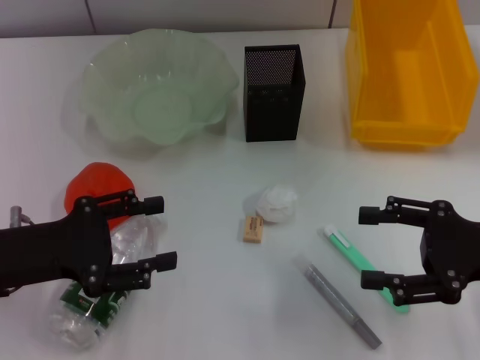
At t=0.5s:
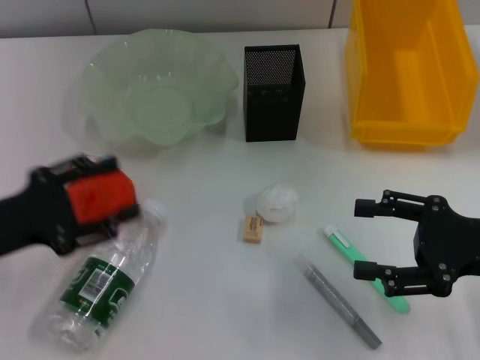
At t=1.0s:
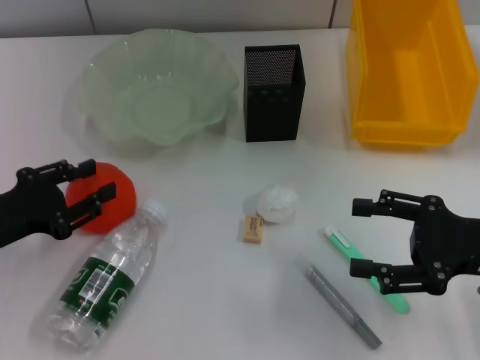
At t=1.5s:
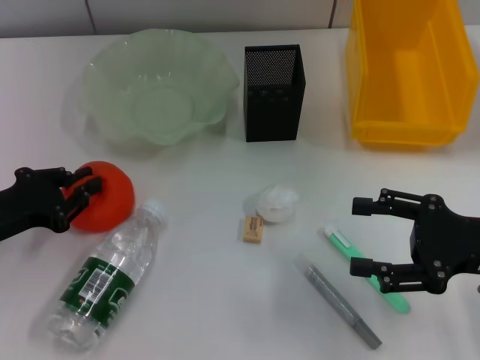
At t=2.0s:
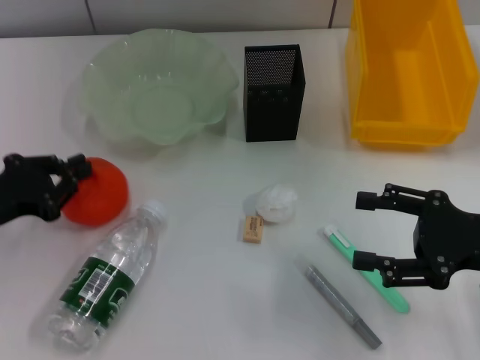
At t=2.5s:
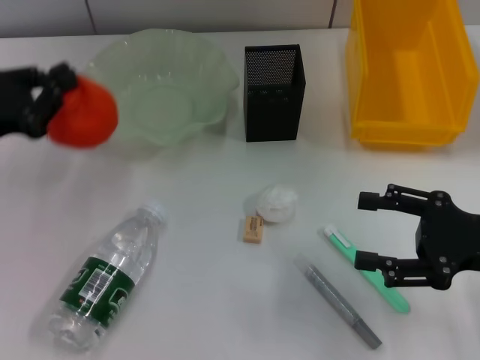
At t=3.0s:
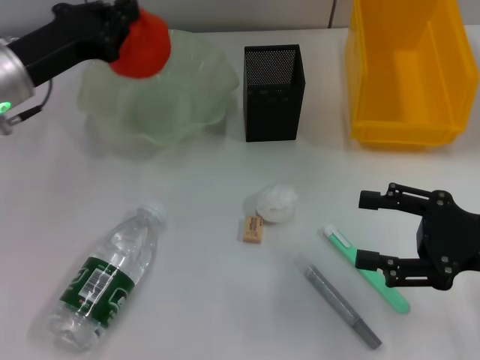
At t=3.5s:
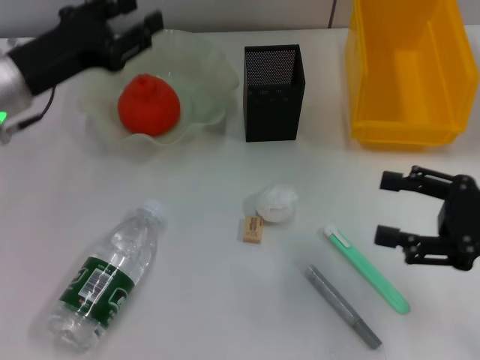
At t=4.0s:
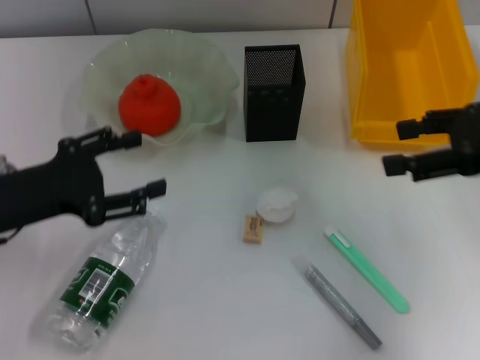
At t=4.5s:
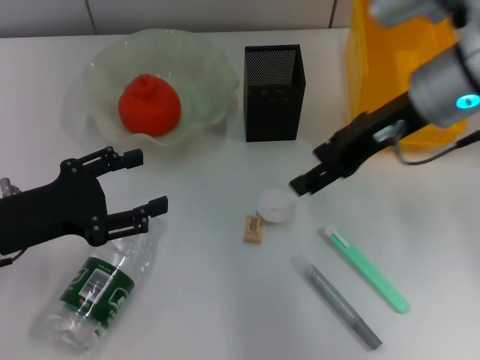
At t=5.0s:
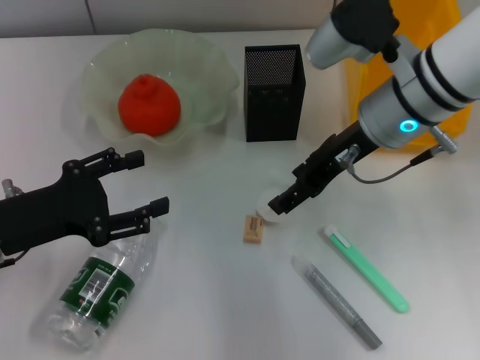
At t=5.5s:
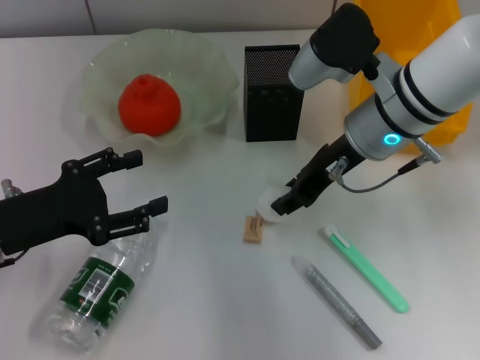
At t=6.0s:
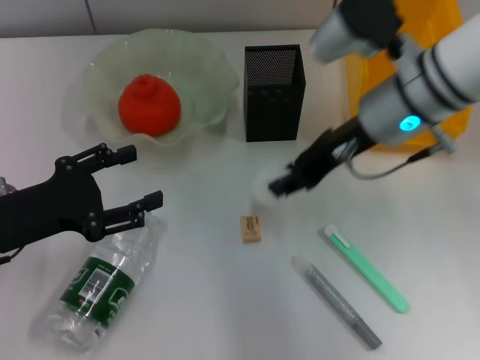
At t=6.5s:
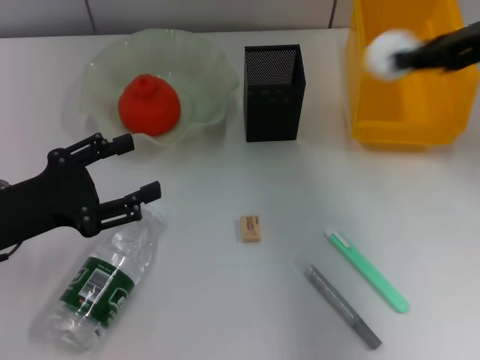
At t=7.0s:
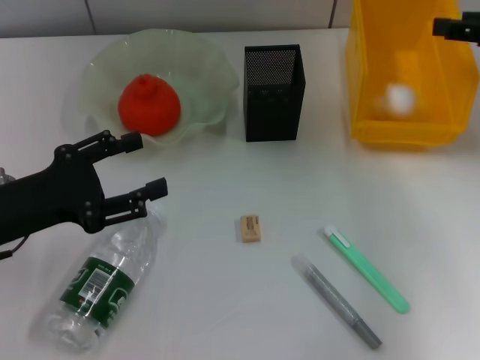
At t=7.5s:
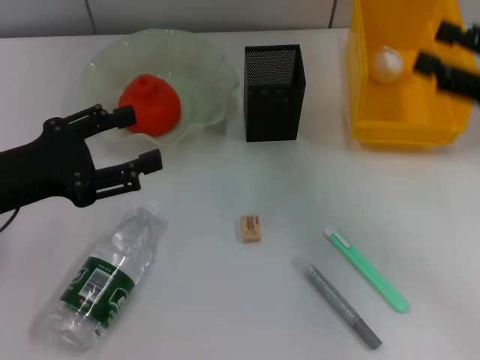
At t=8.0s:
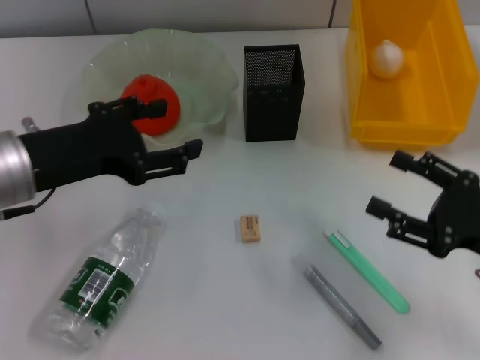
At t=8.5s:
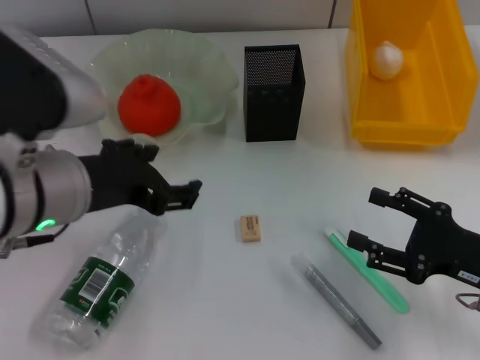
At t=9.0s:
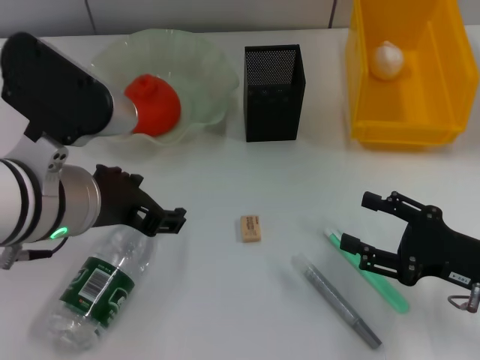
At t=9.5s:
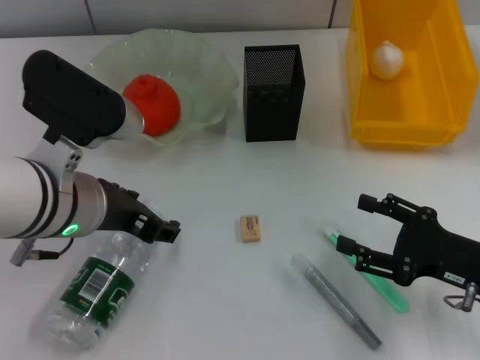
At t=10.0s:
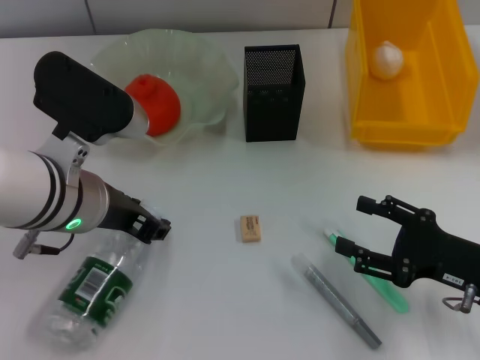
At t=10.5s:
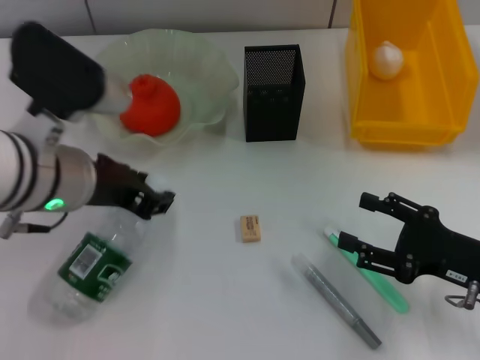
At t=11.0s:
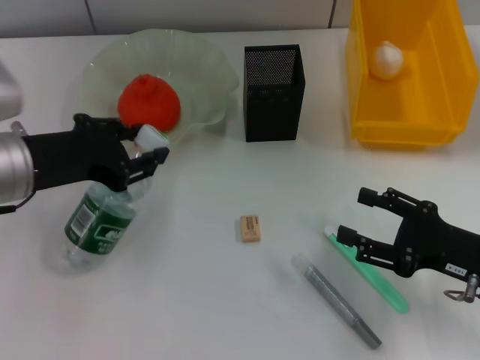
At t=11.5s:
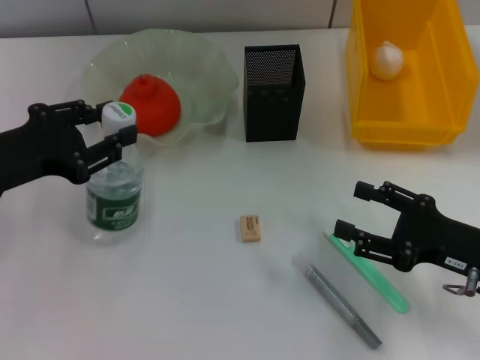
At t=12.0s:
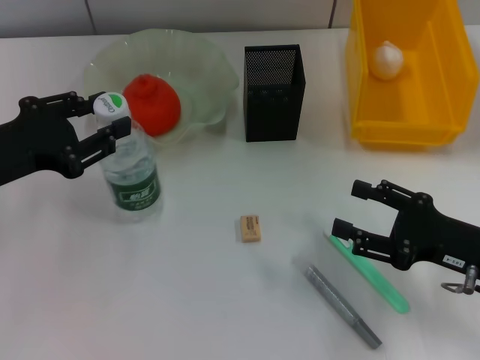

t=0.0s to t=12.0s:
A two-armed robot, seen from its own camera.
Step, t=0.0s to t=1.5s: Grab the orange with the left hand.
Step, t=2.5s to t=3.0s: Place the orange into the fruit bowl with the left hand.
Step, t=3.5s to t=5.5s: Grab the paper ball with the right hand.
Step, t=6.0s to t=7.0s: Place the paper ball into the trash can with the right hand.
Step, t=7.5s to t=10.0s: Grab the water bottle with the left hand.
t=0.0s to t=2.0s: The left gripper ends up some 5 cm from where it was, and closes up.
t=2.0s to t=4.0s: The right gripper shifts some 15 cm upward and forward, while the left gripper goes forward and returns, approximately 10 cm each way, and opens up.
t=4.0s to t=6.0s: The right gripper travels to the left by approximately 15 cm, and closes.
t=6.0s to t=8.0s: The right gripper heads to the right, backward and downward, covering about 25 cm, and opens; the left gripper shifts about 10 cm upward and to the right.
t=8.0s to t=10.0s: The left gripper shifts about 5 cm to the right.
t=10.0s to t=12.0s: The left gripper shifts about 10 cm to the left.

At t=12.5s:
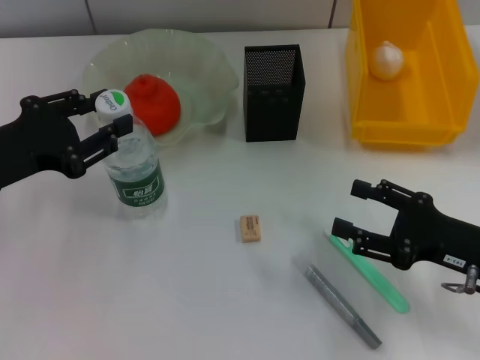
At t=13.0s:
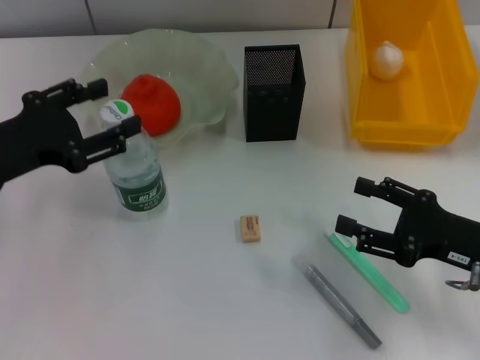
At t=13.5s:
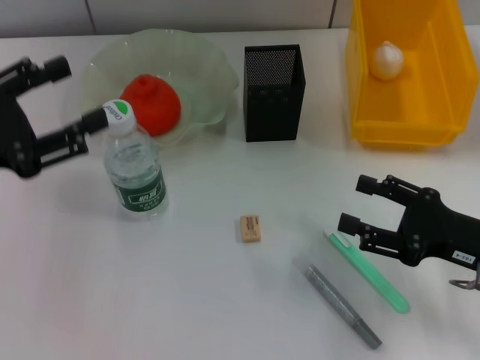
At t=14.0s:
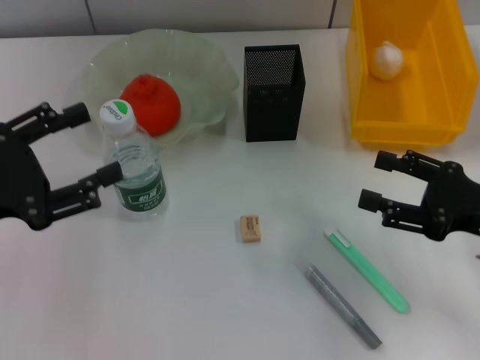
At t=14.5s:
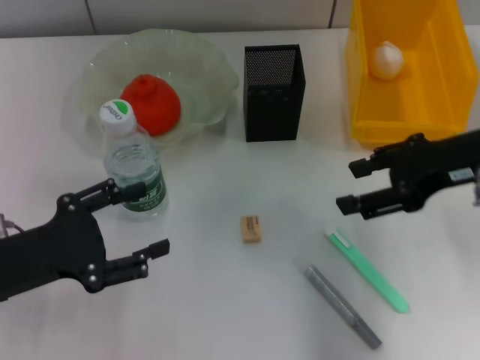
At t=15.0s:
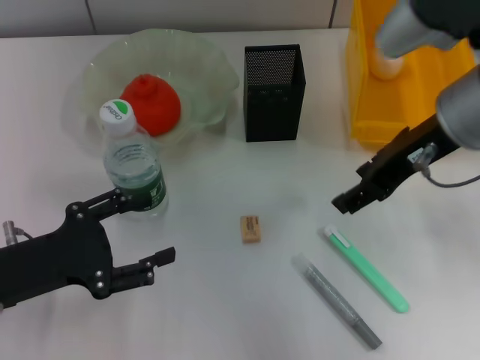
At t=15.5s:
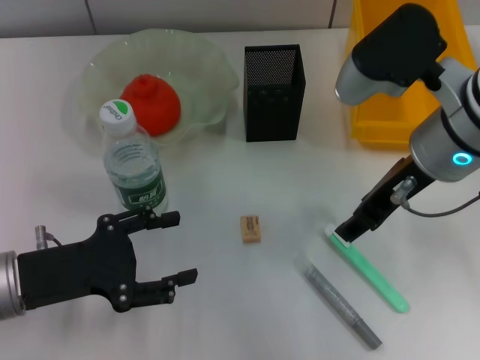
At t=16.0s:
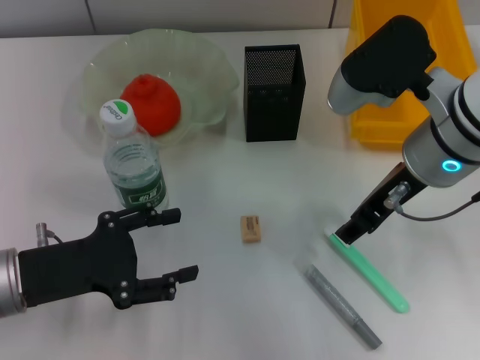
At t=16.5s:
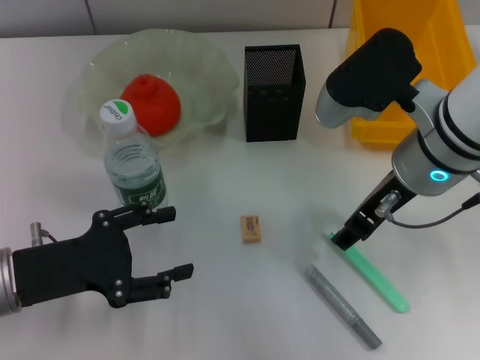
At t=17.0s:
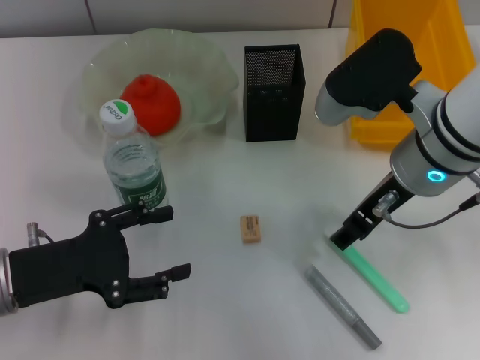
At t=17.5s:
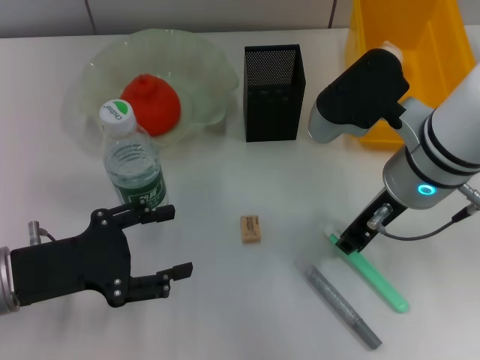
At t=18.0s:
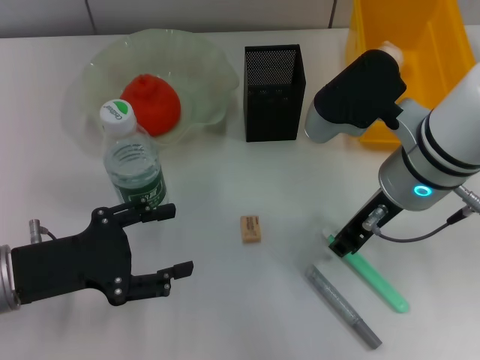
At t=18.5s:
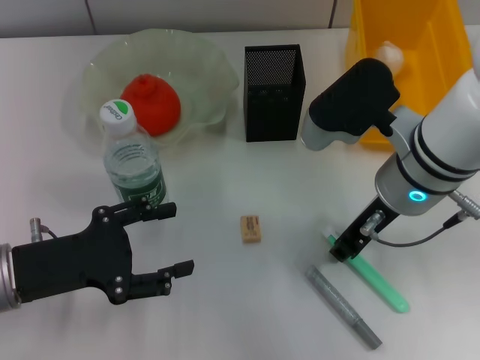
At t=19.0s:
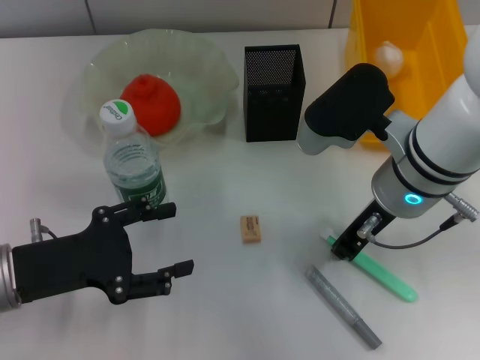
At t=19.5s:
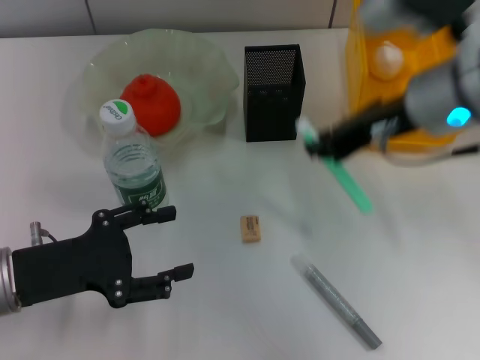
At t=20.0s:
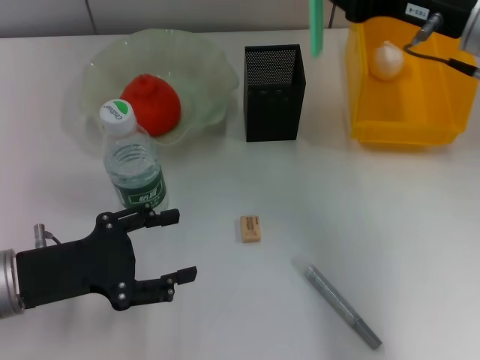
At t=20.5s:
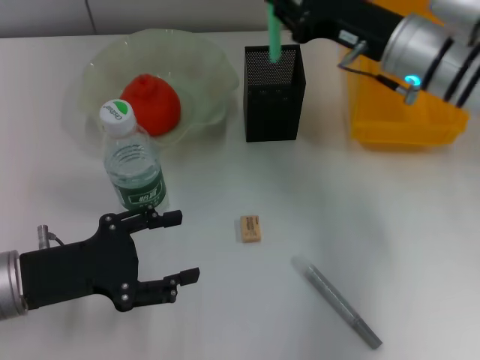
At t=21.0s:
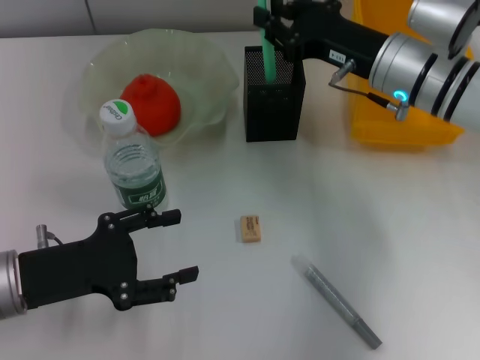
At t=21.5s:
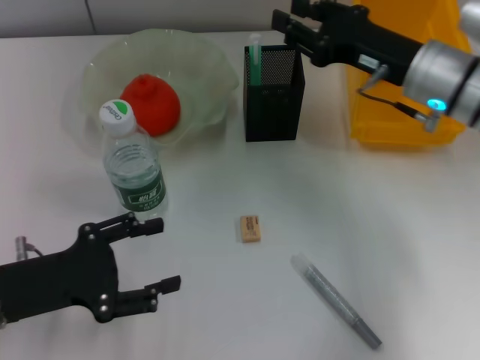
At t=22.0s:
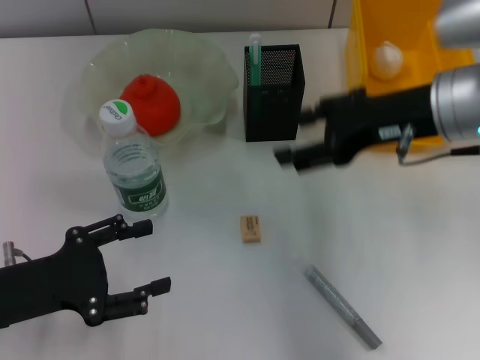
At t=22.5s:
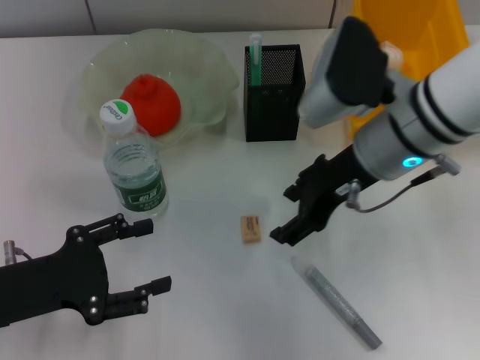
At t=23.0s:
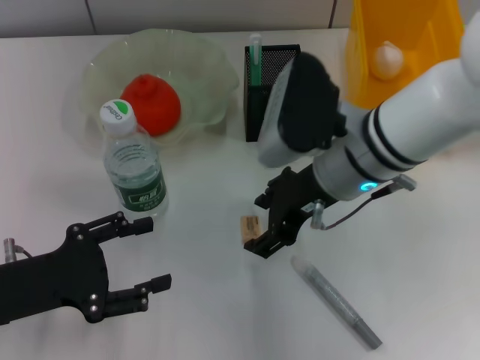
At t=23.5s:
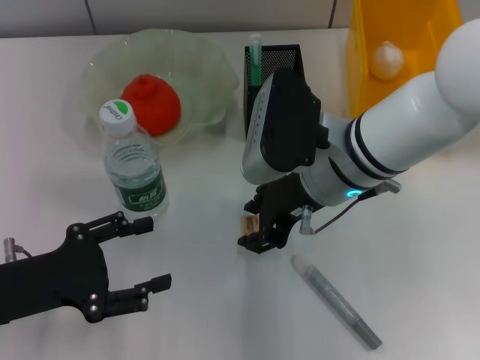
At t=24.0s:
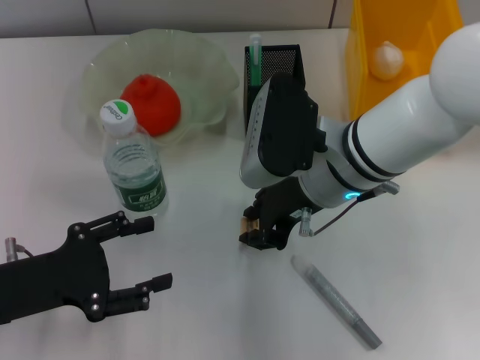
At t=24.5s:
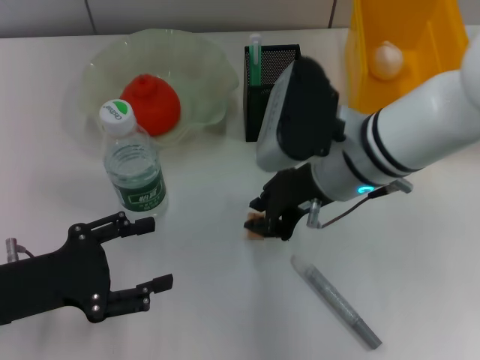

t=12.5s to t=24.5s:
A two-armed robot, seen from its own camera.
Step, t=13.5s to t=19.0s: Grab the blue utility knife with the right hand.
Step, t=19.5s to t=21.0s: Place the blue utility knife into the pen holder with the right hand.
t=12.5s to t=14.5s: The left gripper goes approximately 10 cm downward and backward, and opens up, while the right gripper is displaced upward and forward by some 15 cm.
t=14.5s to t=16.5s: The right gripper heads to the left, covering approximately 10 cm.
t=16.5s to t=18.5s: The right gripper closes.
t=18.5s to t=20.5s: The right gripper shifts approximately 10 cm forward.
t=20.5s to t=22.5s: The right gripper is displaced backward and to the left by roughly 10 cm, and opens.
t=22.5s to t=24.5s: The right gripper closes up.

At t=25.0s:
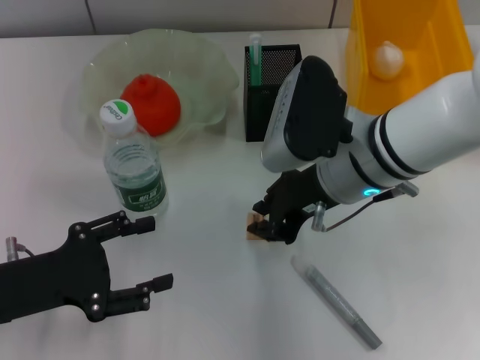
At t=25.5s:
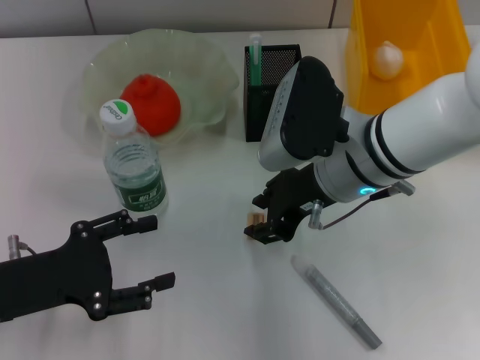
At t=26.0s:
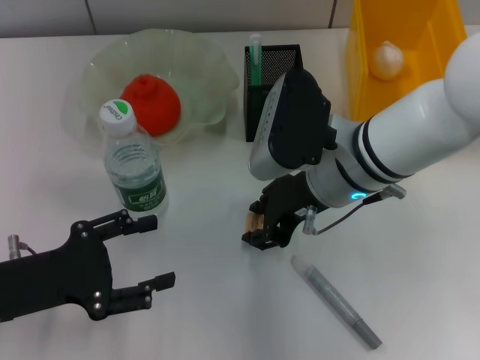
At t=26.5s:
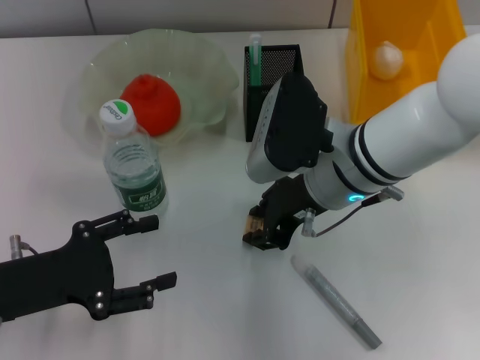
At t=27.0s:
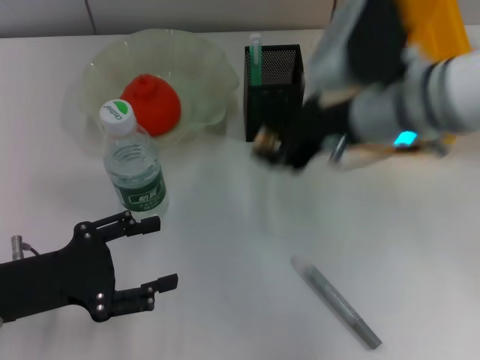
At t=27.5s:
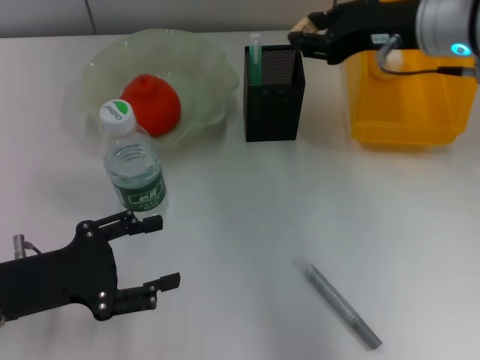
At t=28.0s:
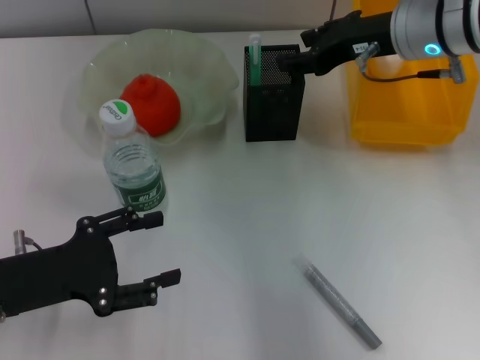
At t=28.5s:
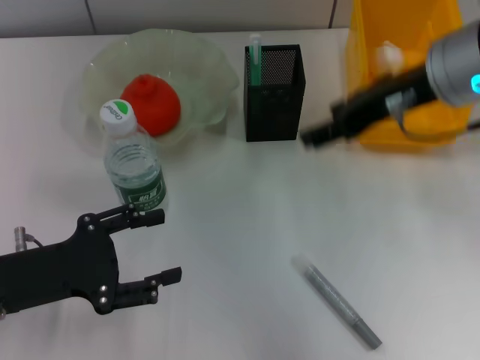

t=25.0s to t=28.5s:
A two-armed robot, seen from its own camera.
Step, t=27.0s to t=28.0s: Put the eraser into the pen holder with the right hand.
t=25.0s to t=27.0s: The right gripper travels upward by approximately 5 cm.
t=27.0s to t=28.5s: The right gripper opens.
